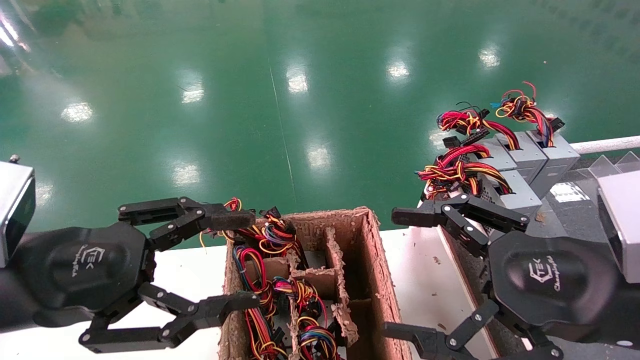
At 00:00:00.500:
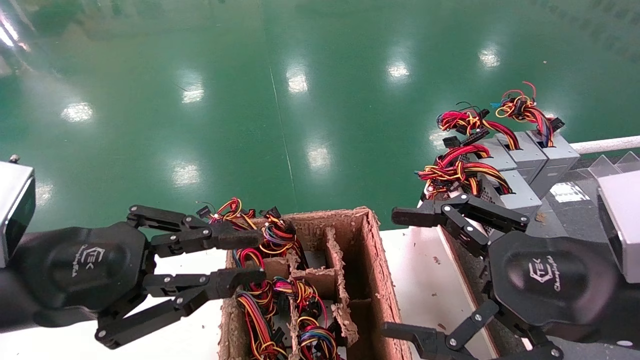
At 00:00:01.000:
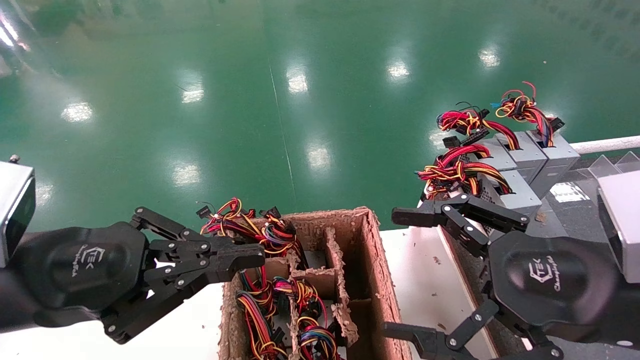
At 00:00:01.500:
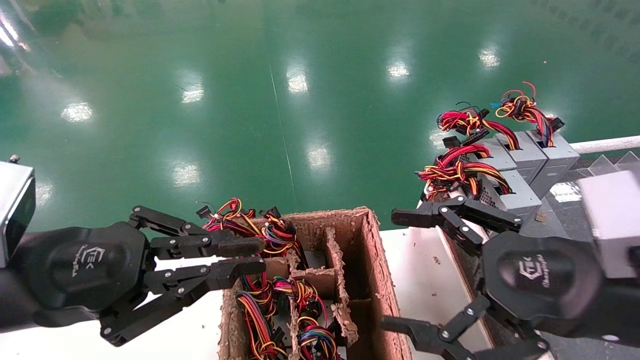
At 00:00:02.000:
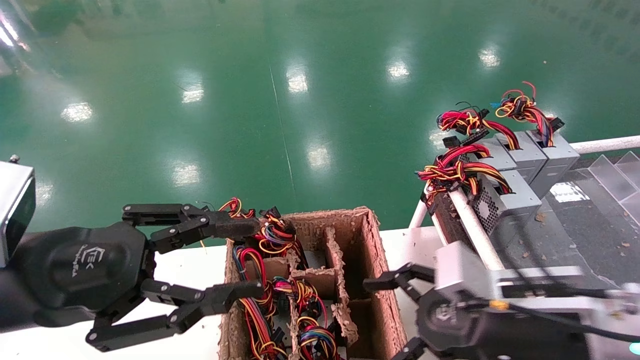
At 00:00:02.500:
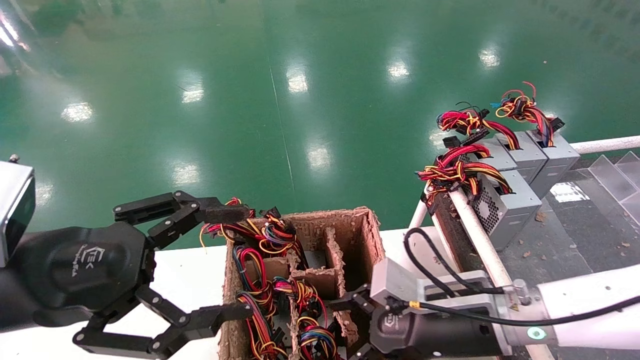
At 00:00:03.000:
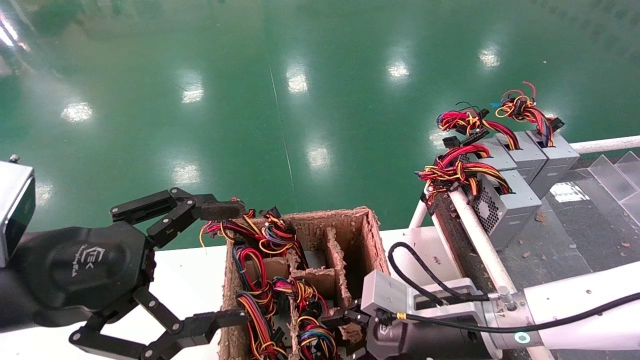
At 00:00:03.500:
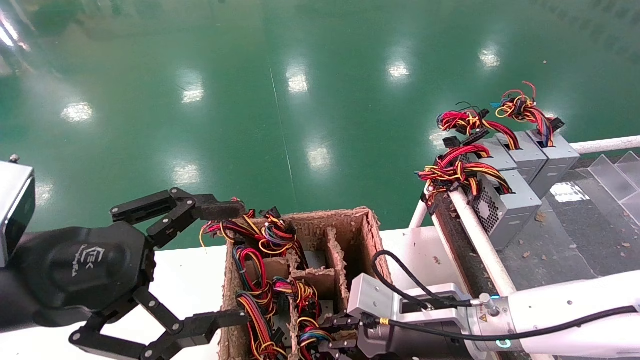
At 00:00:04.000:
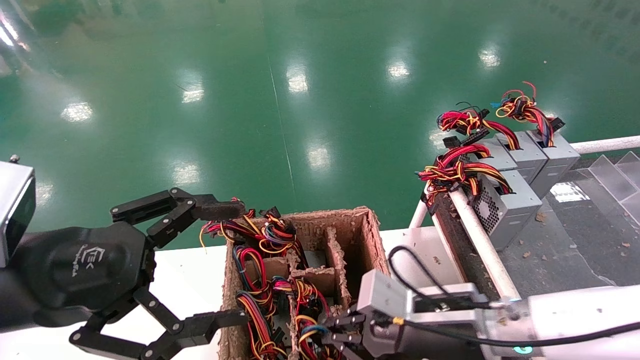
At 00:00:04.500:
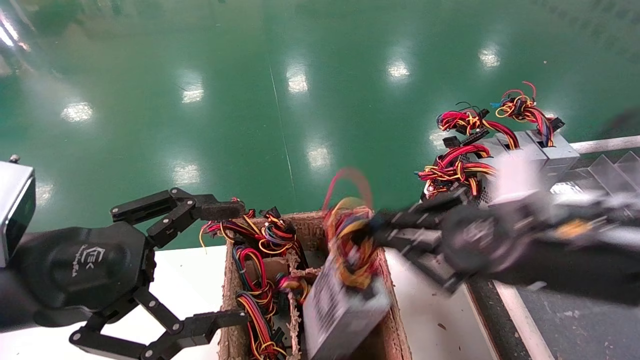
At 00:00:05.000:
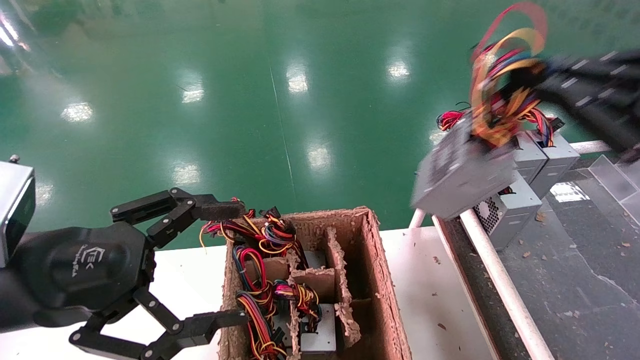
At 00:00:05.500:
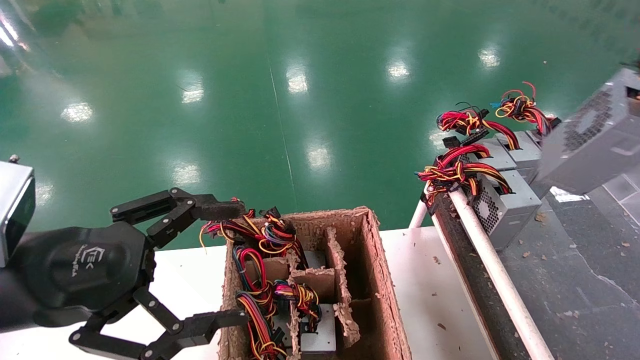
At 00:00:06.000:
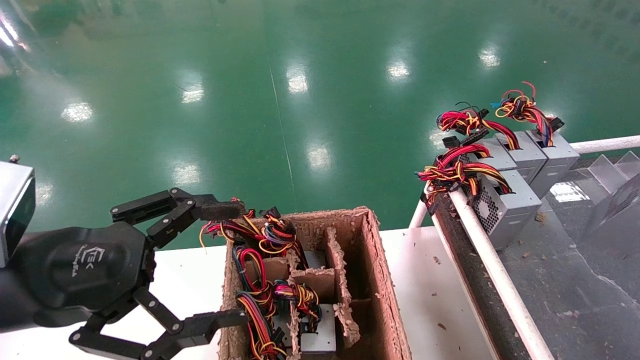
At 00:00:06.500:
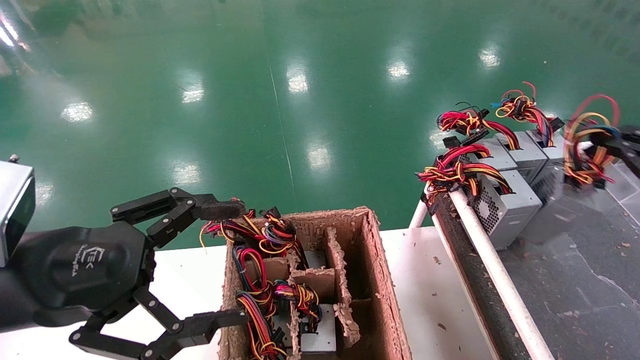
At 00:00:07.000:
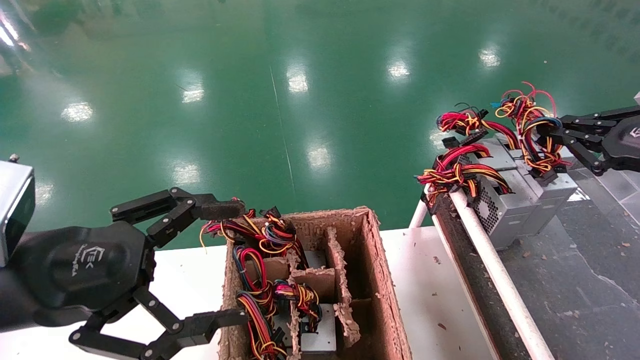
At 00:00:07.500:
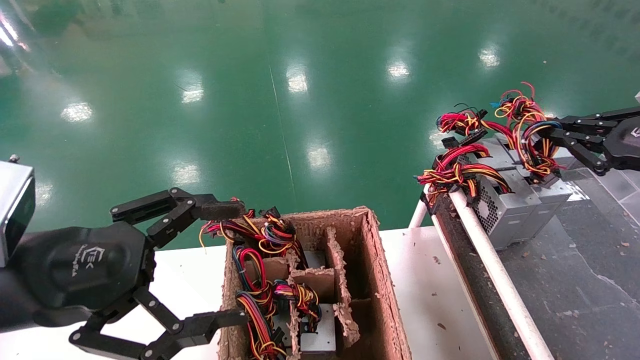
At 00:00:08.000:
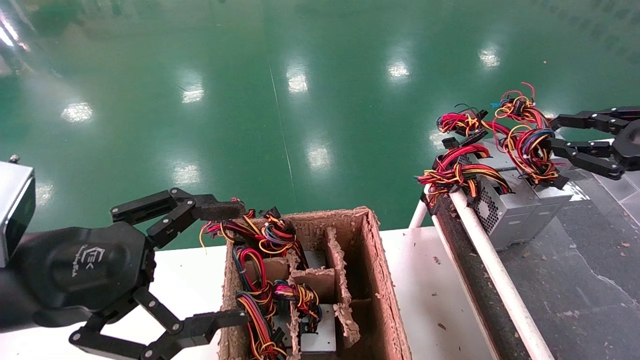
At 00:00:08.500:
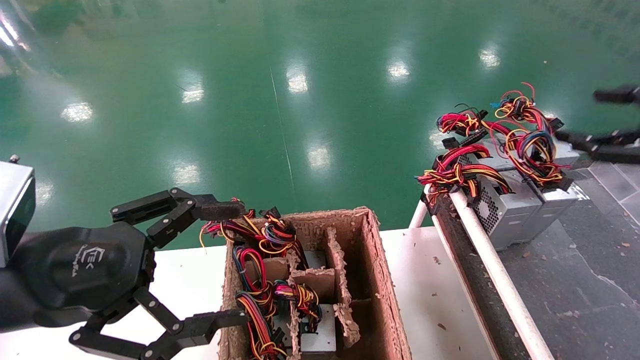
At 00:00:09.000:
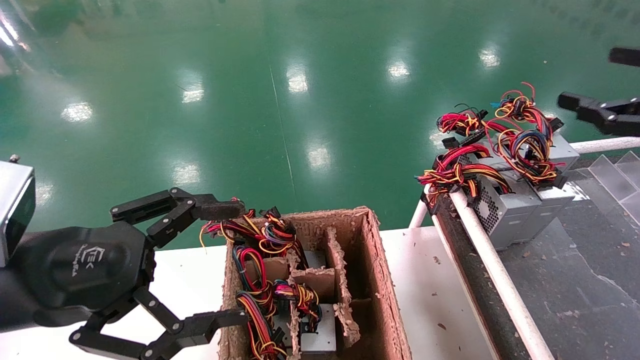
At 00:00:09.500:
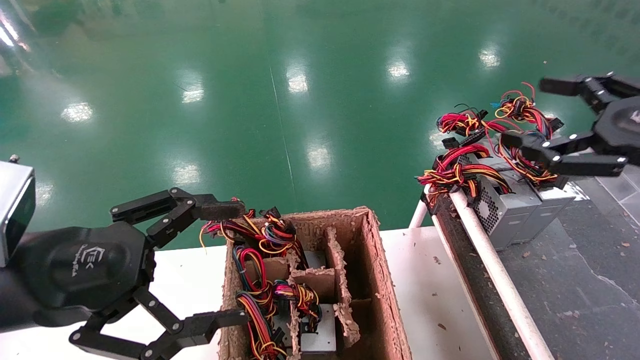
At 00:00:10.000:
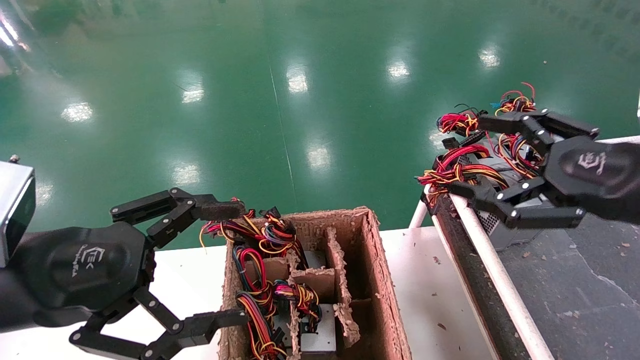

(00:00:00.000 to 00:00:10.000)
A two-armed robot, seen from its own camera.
Step, 00:00:02.000 - 00:00:03.500: Grab and lift the power supply from the large box.
Step, 00:00:04.000 - 00:00:07.500: Place the power supply on the operating table.
00:00:00.000 - 00:00:02.000: The right gripper is displaced downward and forward by about 10 cm.
00:00:02.000 - 00:00:04.000: The left gripper opens up, while the right gripper shifts some 5 cm to the left, and closes its fingers.
00:00:04.000 - 00:00:06.000: The right gripper heads to the right and upward, covering approximately 40 cm.
00:00:06.000 - 00:00:08.000: The right gripper shifts roughly 15 cm forward and to the left.
00:00:08.000 - 00:00:10.000: The right gripper is displaced to the left and backward by about 15 cm, and opens its fingers.

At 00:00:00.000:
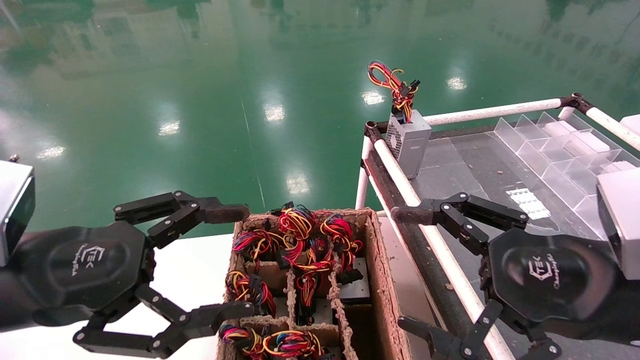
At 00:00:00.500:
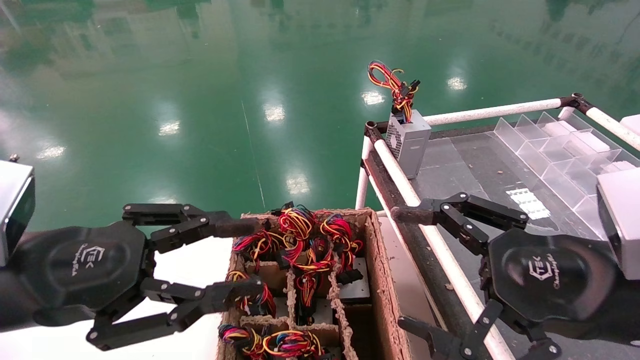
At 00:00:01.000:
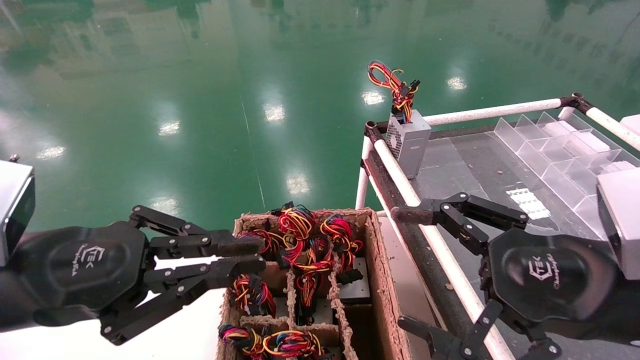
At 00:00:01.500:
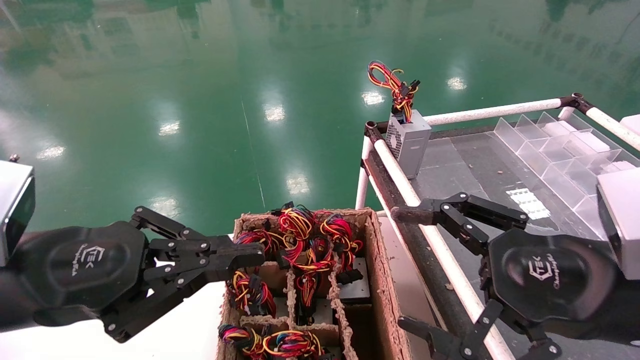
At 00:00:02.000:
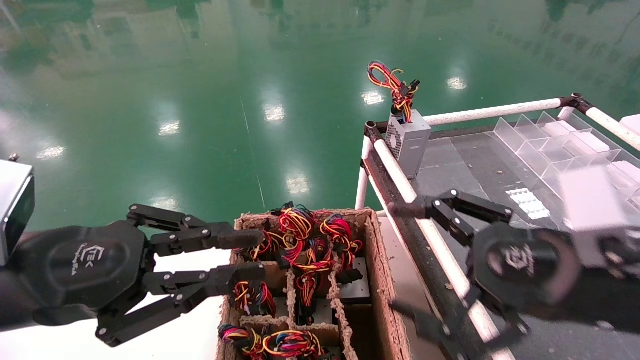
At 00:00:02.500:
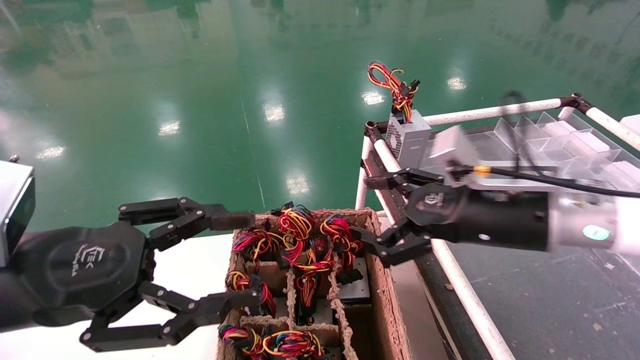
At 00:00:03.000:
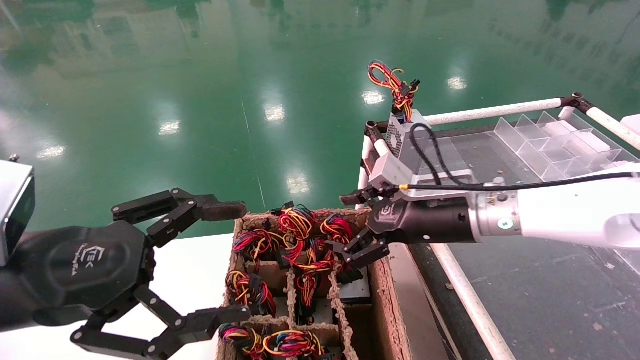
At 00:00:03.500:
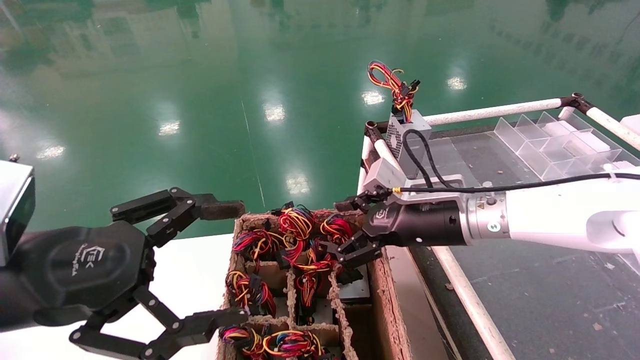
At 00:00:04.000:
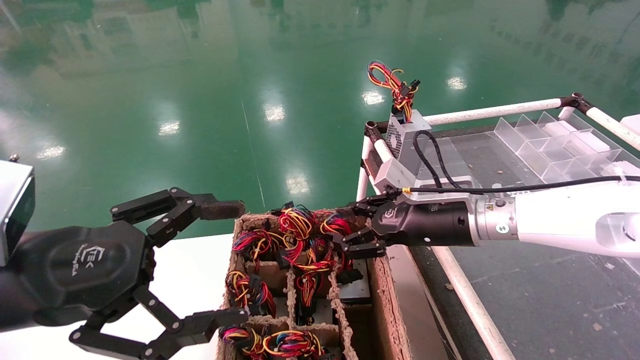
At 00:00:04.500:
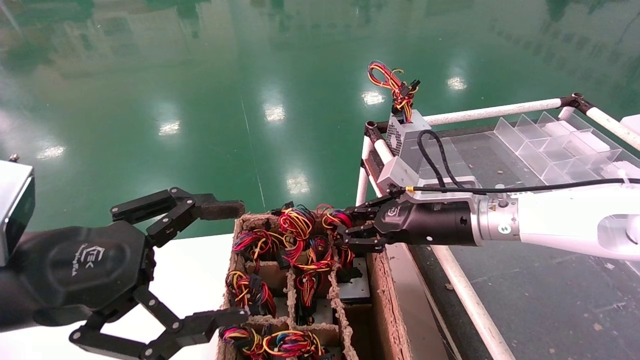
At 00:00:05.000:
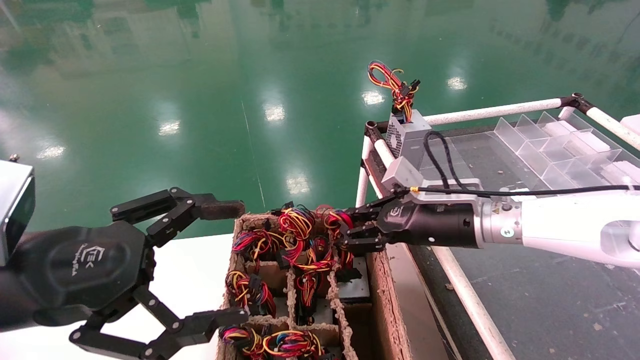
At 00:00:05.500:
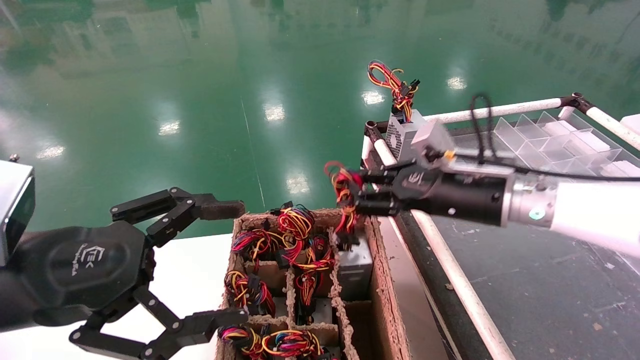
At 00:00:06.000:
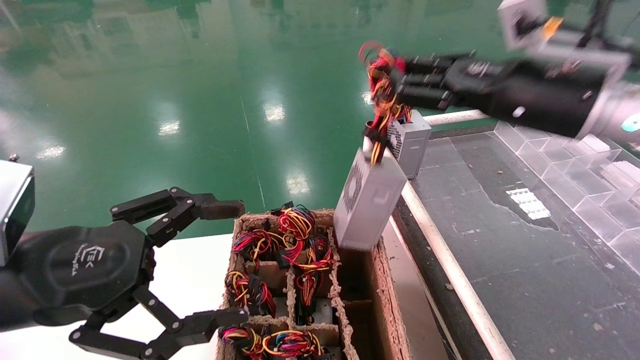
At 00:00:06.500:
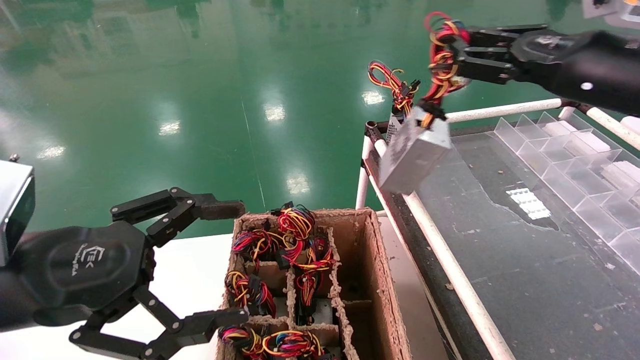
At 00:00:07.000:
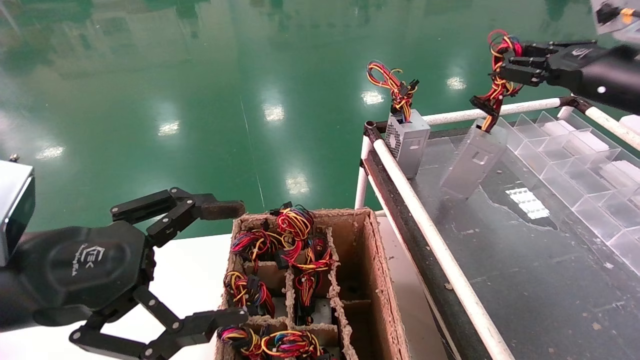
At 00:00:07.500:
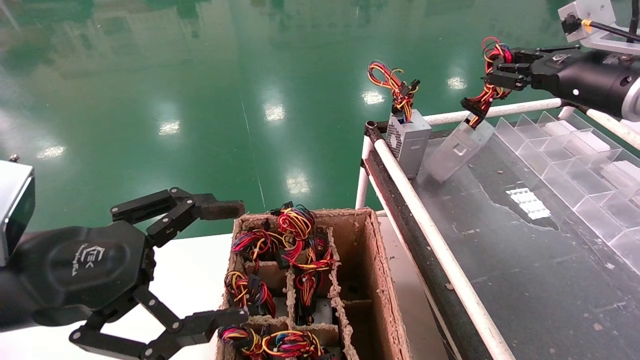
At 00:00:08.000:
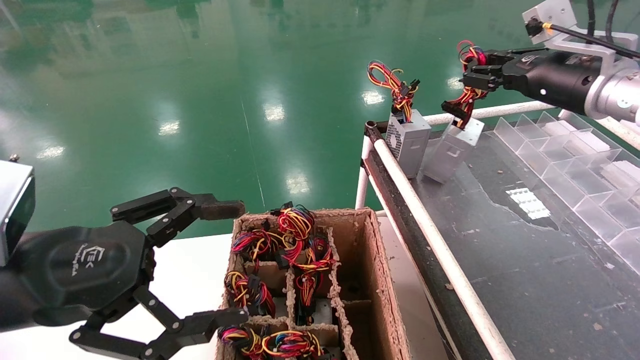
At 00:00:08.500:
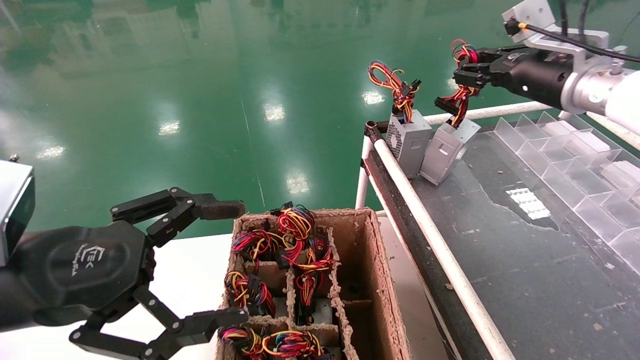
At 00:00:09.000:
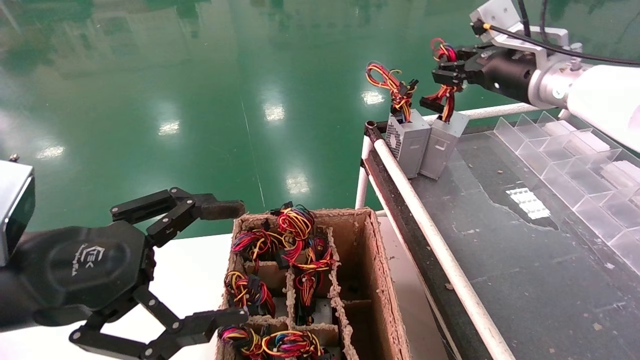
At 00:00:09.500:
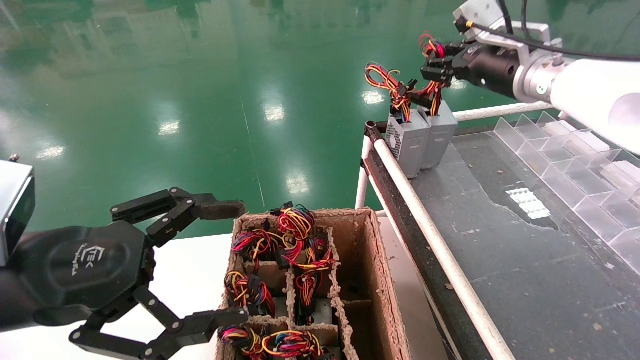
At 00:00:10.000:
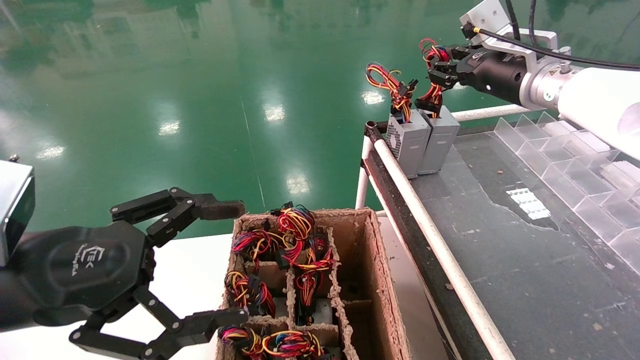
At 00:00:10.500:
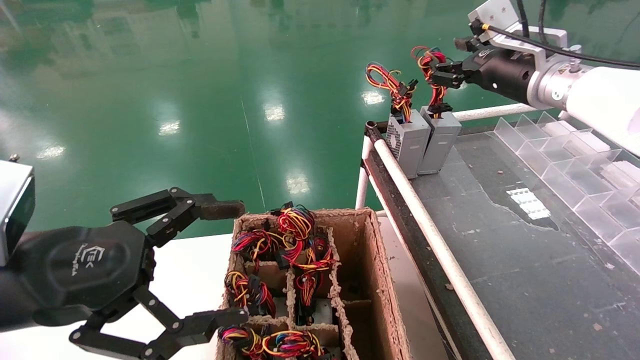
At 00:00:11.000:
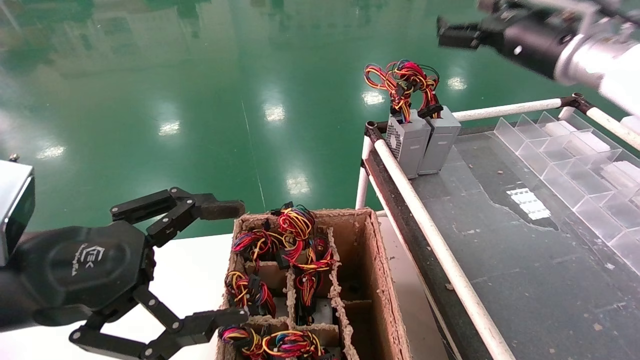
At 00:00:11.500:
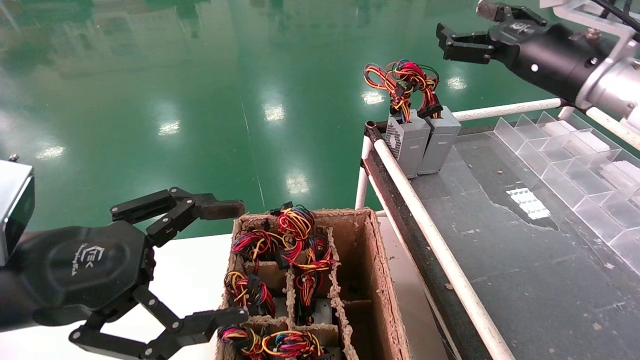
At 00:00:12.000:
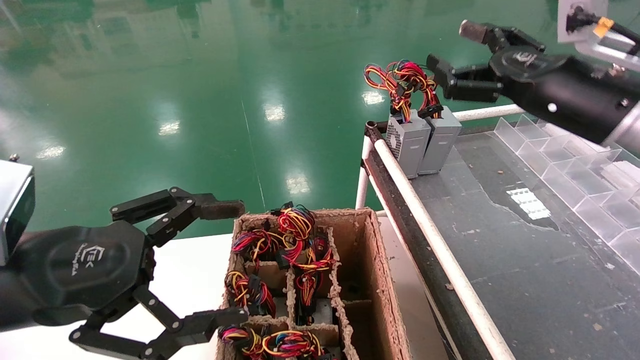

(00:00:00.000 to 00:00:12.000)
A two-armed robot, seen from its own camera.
Step, 00:00:01.500 - 00:00:04.500: Grab and lift the power supply from the large box.
Step, 00:00:05.000 - 00:00:10.000: Place the power supply on the operating table.
00:00:00.000 - 00:00:02.000: The left gripper closes up.
00:00:02.000 - 00:00:04.000: The right gripper shifts approximately 20 cm forward, and closes up; the left gripper opens up.
00:00:04.000 - 00:00:06.000: The right gripper travels upward and to the right by about 15 cm, and closes its fingers.
00:00:06.000 - 00:00:08.000: The right gripper heads to the right and forward, covering approximately 10 cm.
00:00:08.000 - 00:00:10.000: The right gripper shifts about 5 cm to the left.
00:00:10.000 - 00:00:12.000: The right gripper goes about 10 cm backward, and opens its fingers.
